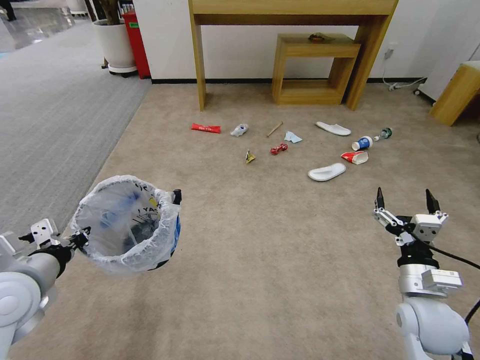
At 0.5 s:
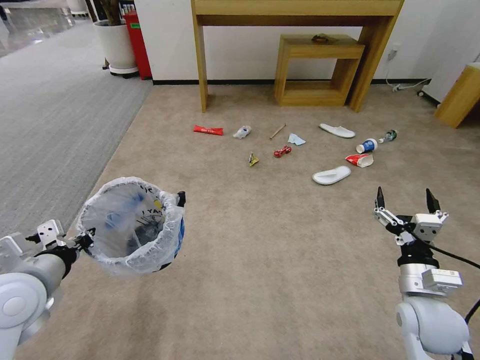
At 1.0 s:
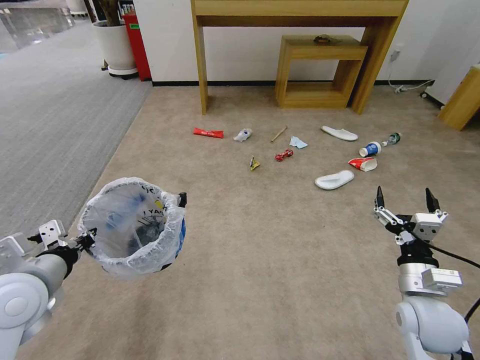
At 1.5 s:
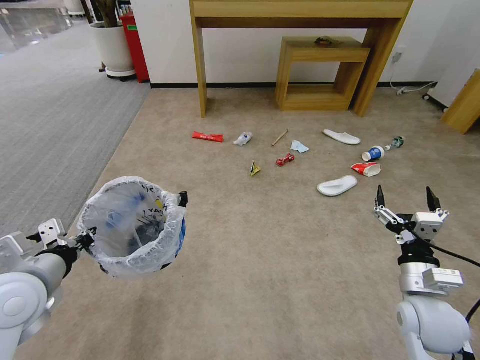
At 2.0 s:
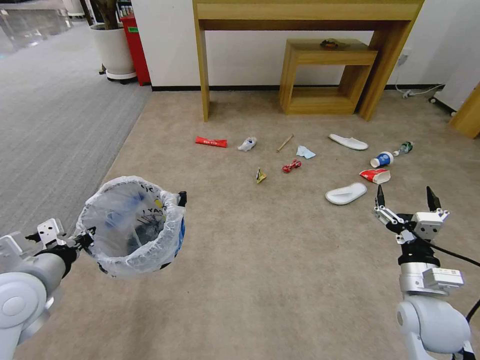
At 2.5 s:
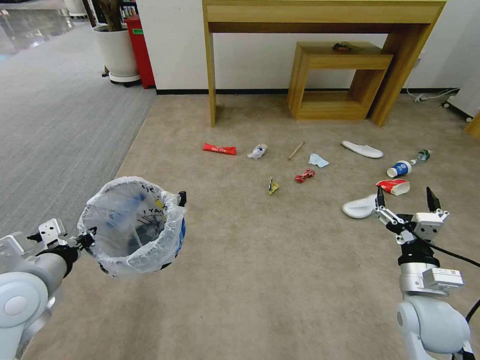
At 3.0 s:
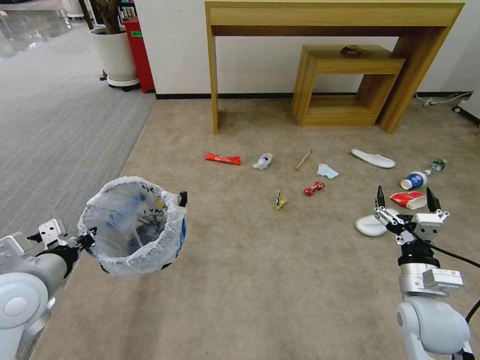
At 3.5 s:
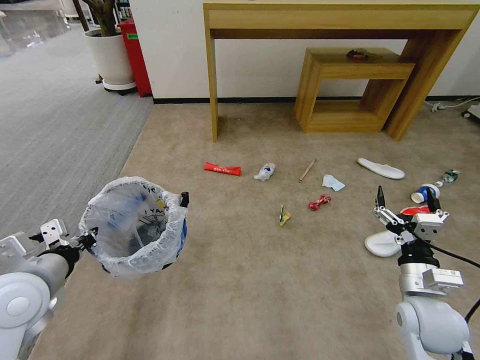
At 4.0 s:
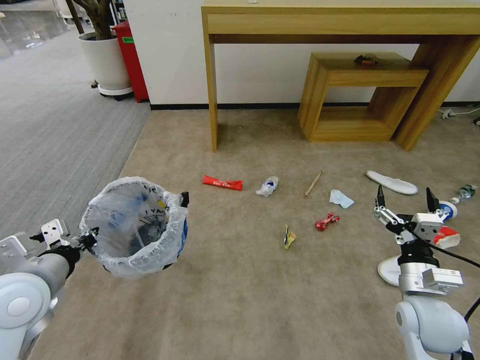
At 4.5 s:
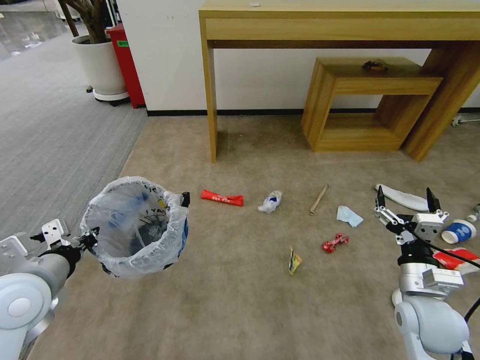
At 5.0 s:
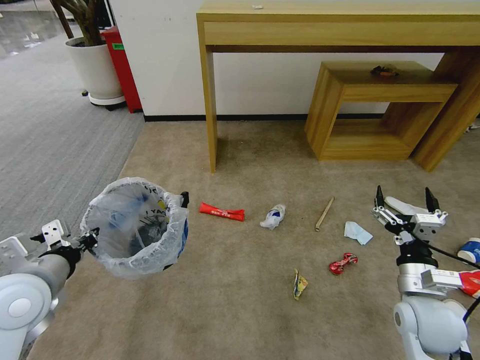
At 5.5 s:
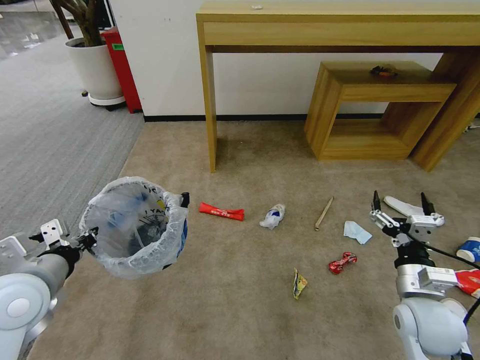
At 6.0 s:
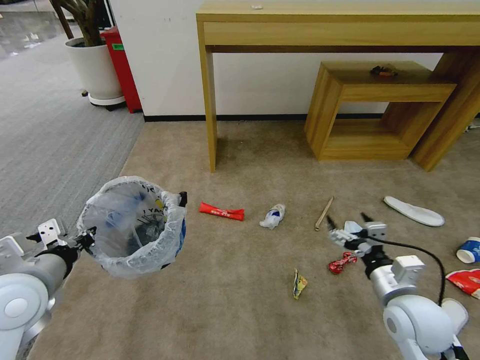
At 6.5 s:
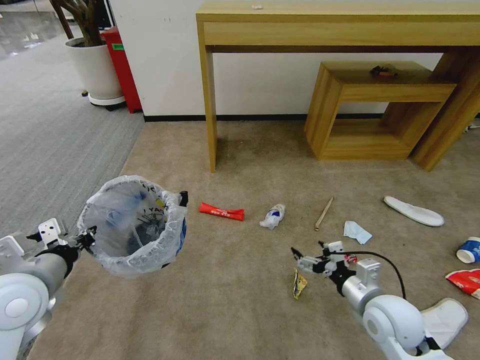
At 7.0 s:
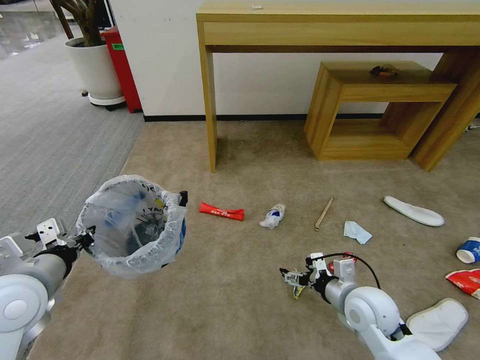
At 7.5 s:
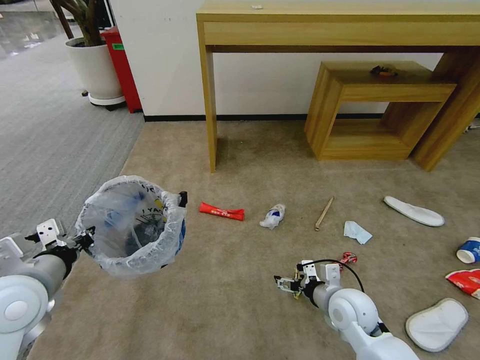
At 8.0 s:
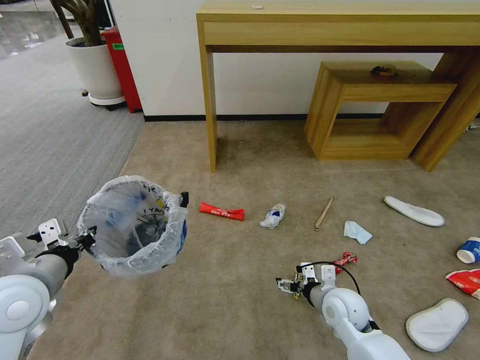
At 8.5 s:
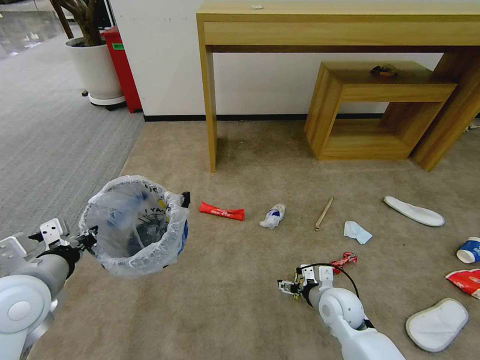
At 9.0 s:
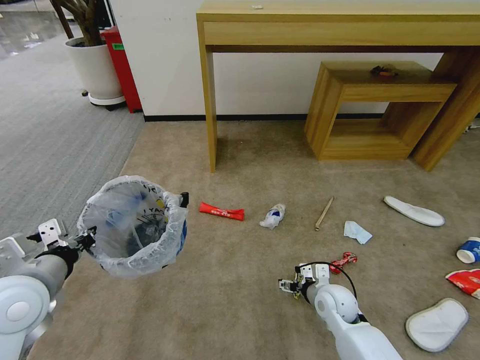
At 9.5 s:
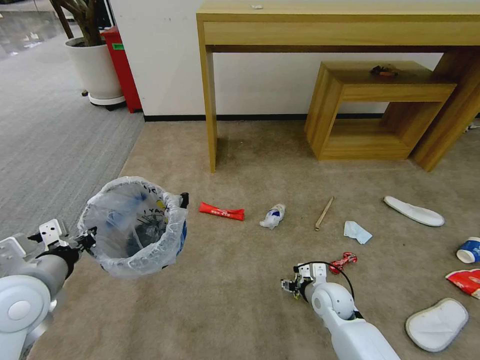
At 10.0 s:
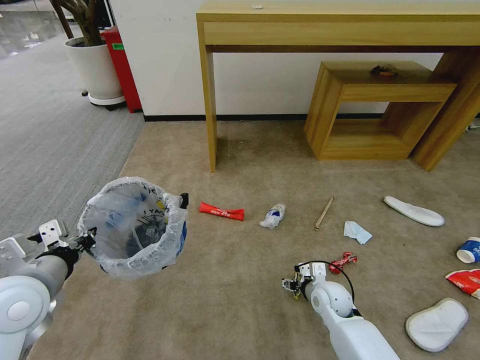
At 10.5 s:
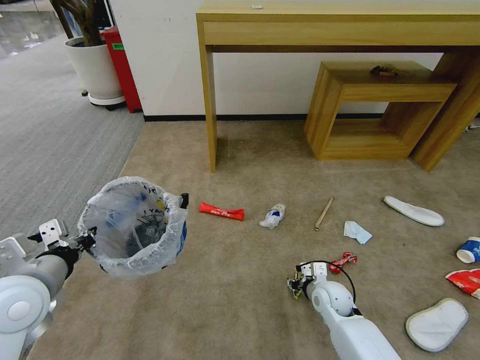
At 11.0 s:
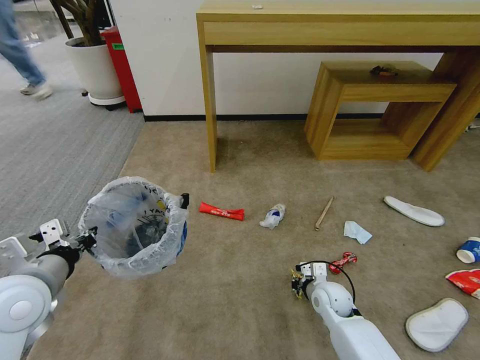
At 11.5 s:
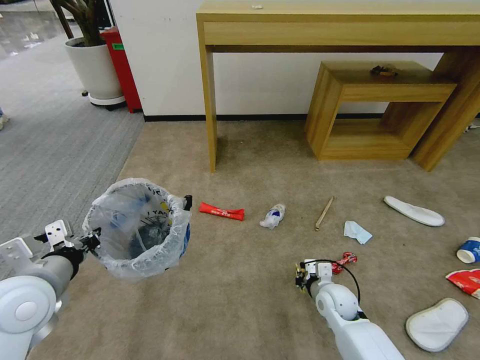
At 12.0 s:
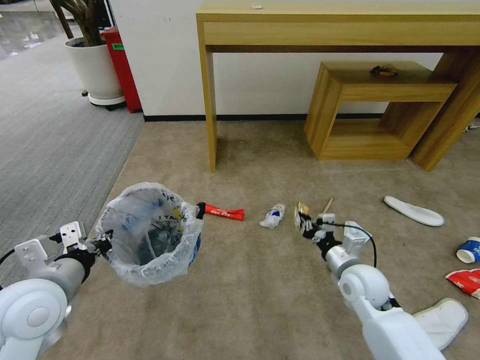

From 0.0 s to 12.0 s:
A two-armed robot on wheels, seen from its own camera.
Task of the whole recording: Pick up the trash bin and place the garbage on the floor into it.
From 0.0 s to 2.0 s: Both grippers stay about where they are.
From 6.0 s to 8.0 s: The right gripper is displaced downward, to the left and forward by approximately 15 cm.
From 8.0 s to 10.0 s: The right gripper heads downward, covering about 5 cm.
From 10.0 s to 12.0 s: The right gripper shifts about 10 cm upward, and closes.

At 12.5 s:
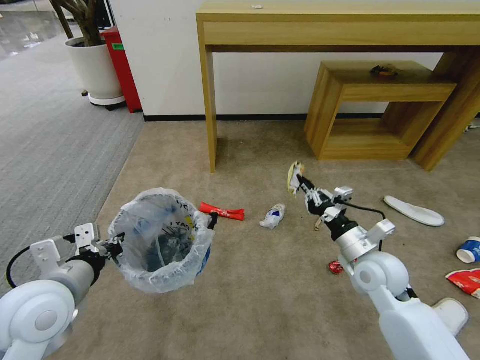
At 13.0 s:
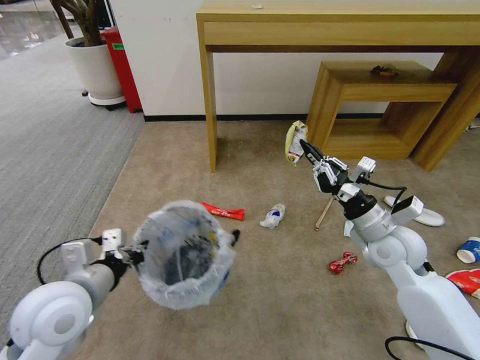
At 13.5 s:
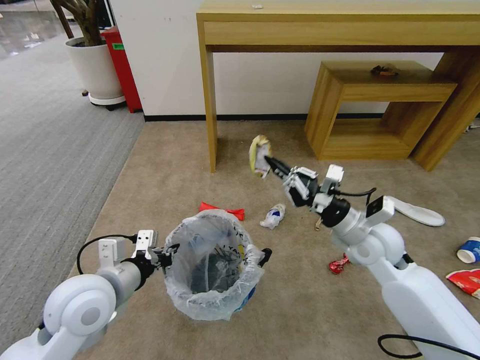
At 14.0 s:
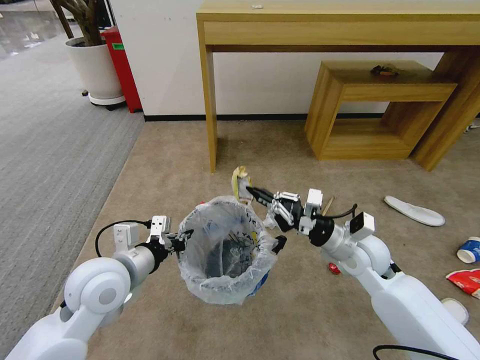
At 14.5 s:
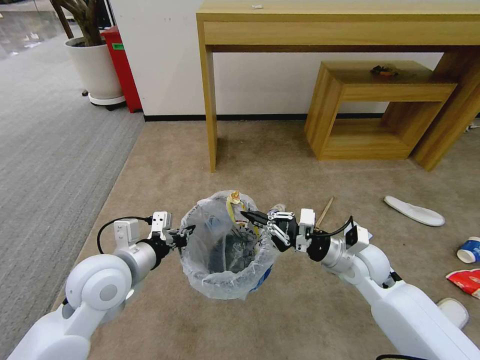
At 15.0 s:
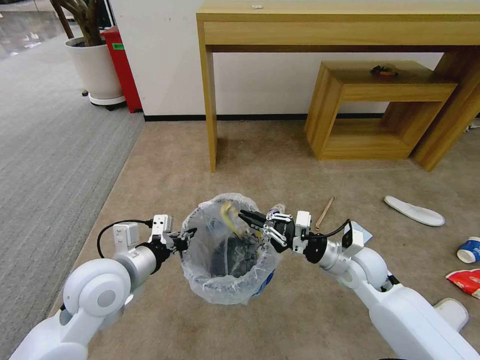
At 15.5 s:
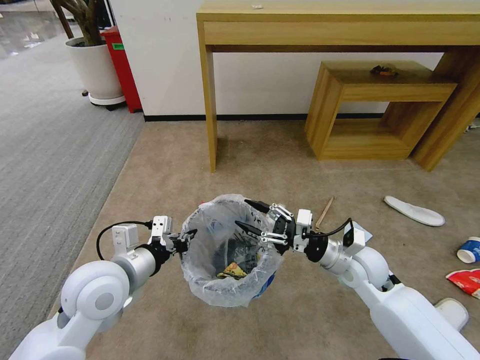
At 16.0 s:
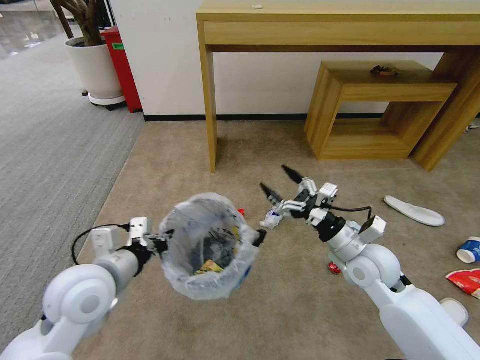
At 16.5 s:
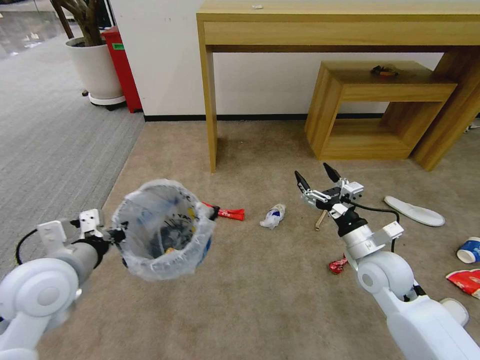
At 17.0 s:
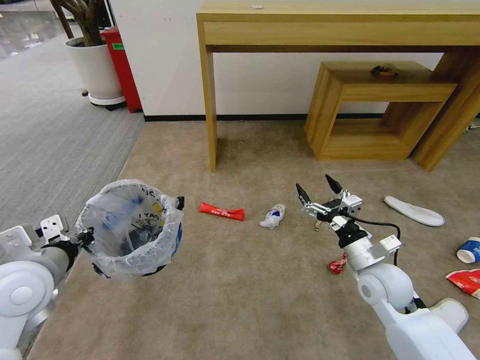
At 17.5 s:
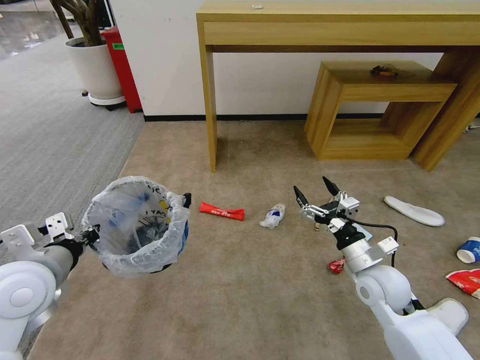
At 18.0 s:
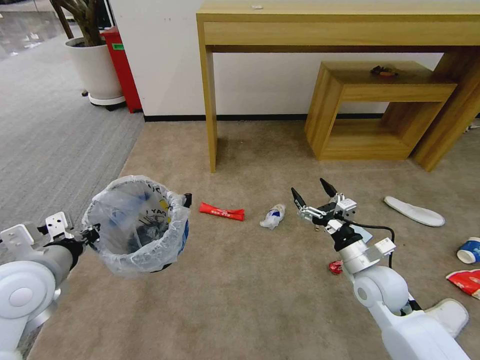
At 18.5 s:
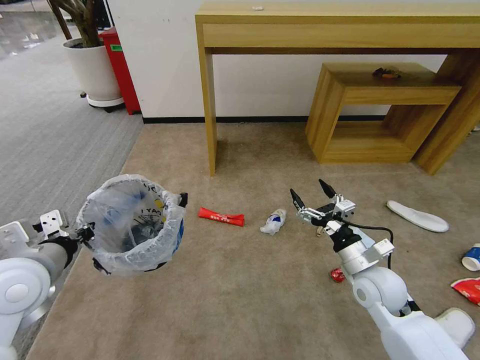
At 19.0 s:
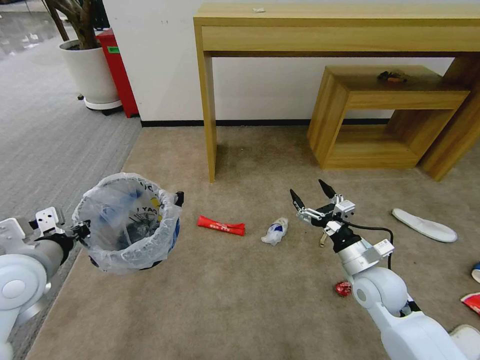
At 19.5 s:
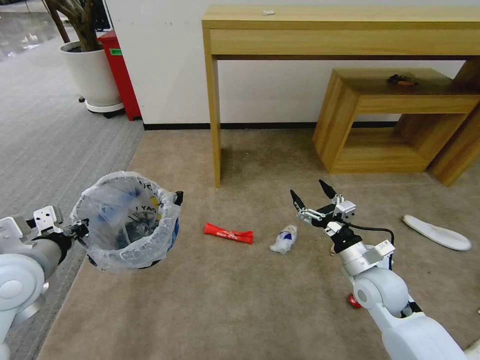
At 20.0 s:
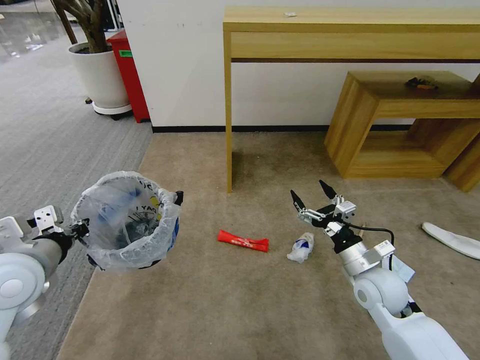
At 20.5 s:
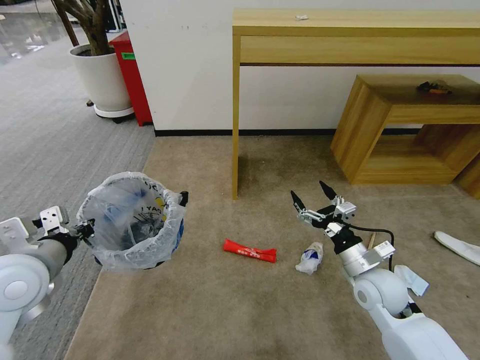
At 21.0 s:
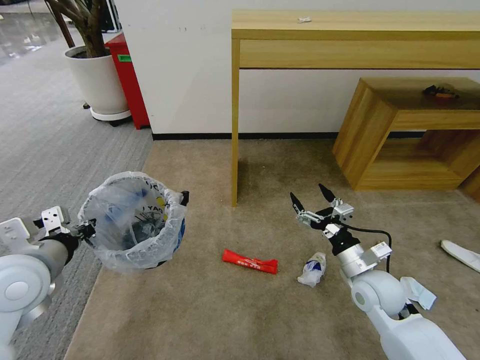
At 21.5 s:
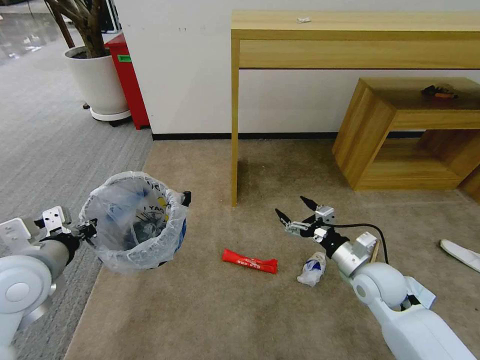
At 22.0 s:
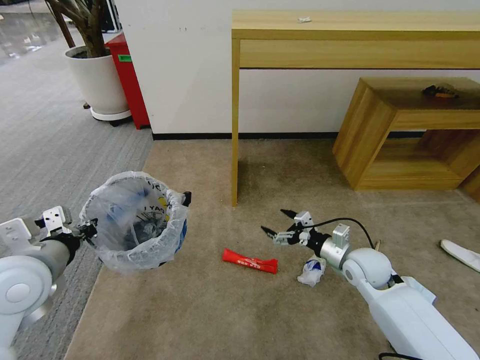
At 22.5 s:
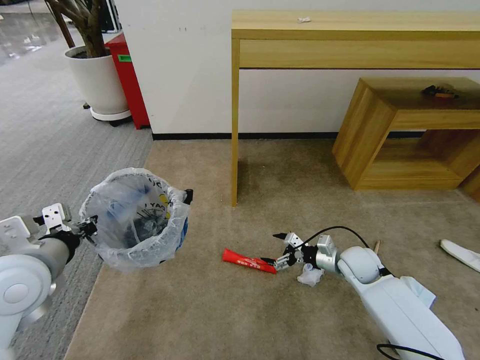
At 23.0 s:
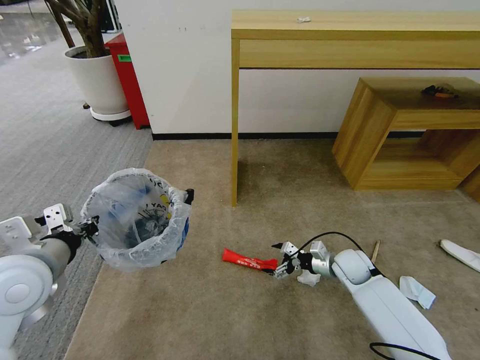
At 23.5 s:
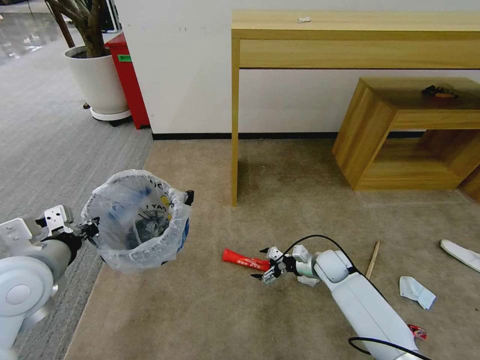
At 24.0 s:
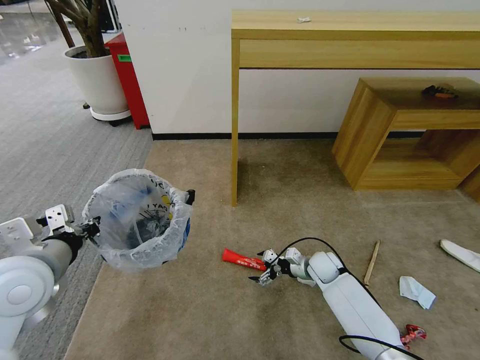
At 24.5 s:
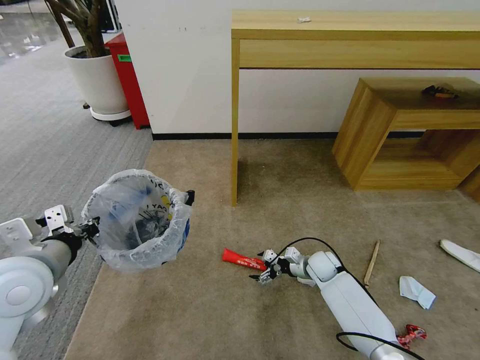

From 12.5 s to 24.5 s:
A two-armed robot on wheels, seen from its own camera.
Task of the whole recording: Pick up the trash bin and place the garbage on the floor into it.
From 12.5 s to 14.5 s: The left gripper goes approximately 10 cm to the right and forward.
From 14.5 s to 16.5 s: The left gripper shifts some 5 cm to the left; the right gripper opens its fingers.
From 20.5 s to 22.5 s: The right gripper heads forward and downward, covering approximately 10 cm.
From 22.5 s to 24.5 s: The right gripper heads downward and to the left, covering roughly 10 cm.

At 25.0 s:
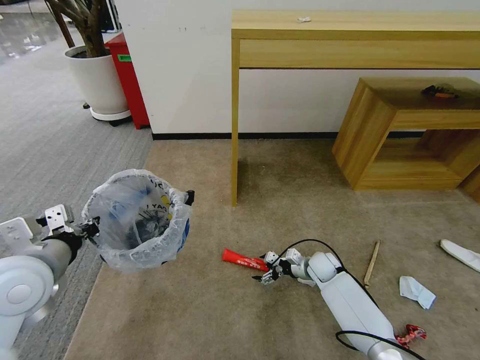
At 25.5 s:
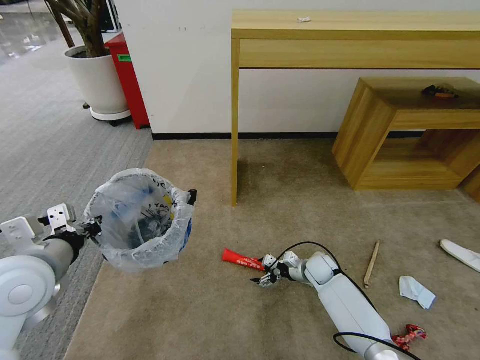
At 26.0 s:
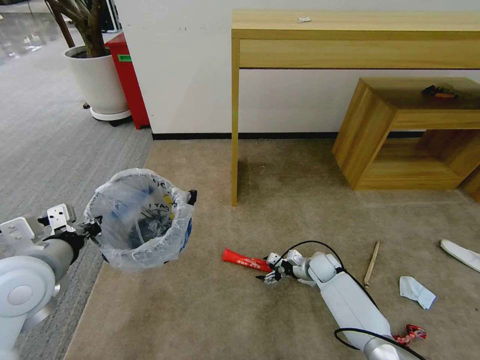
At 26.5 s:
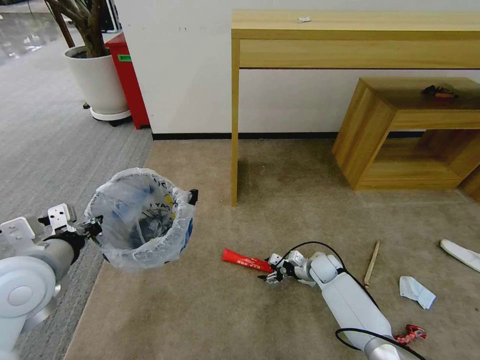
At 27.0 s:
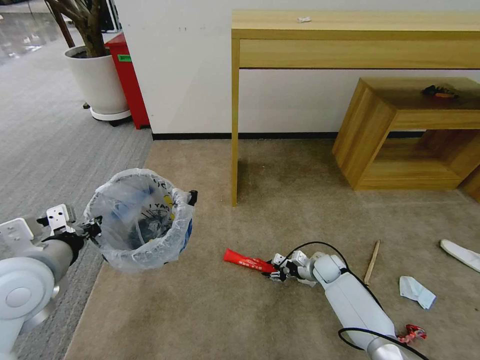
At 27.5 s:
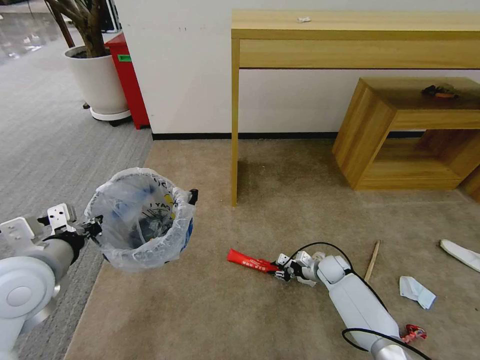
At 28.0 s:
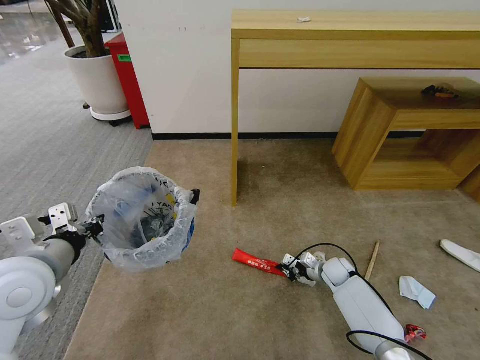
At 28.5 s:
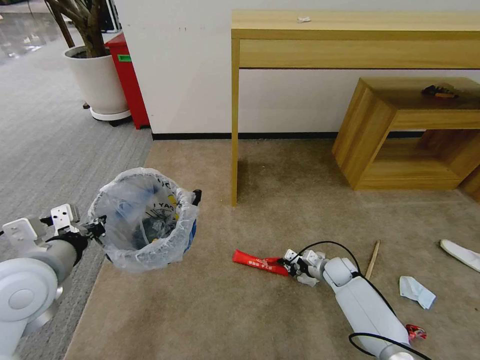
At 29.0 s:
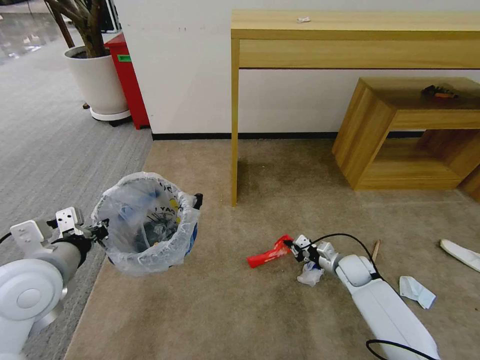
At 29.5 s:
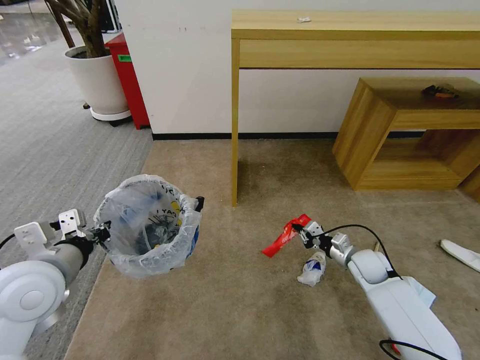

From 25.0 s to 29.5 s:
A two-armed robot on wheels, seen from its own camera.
Task of the whole recording: Pick up the trash bin and place the garbage on the floor into it.
From 25.0 s to 27.0 s: The right gripper closes up.
From 27.0 s to 29.5 s: The right gripper moves upward and to the right, approximately 10 cm, and closes up.
